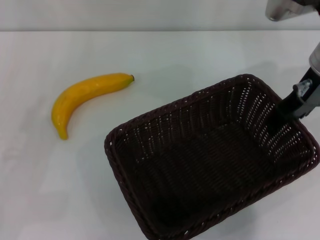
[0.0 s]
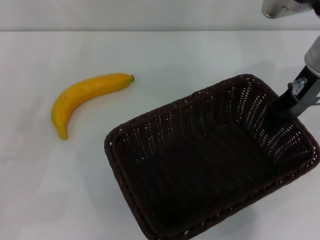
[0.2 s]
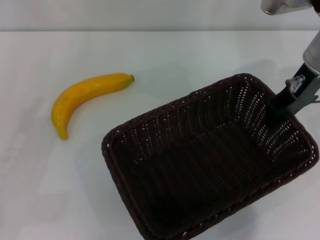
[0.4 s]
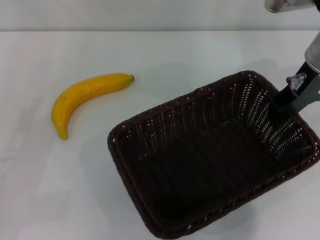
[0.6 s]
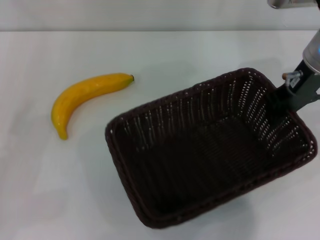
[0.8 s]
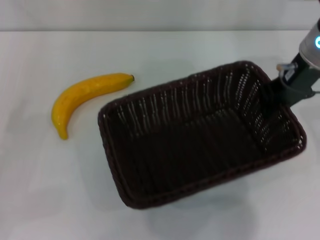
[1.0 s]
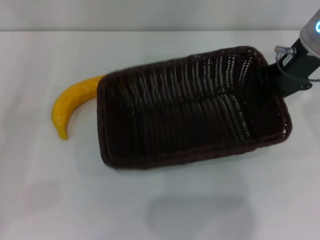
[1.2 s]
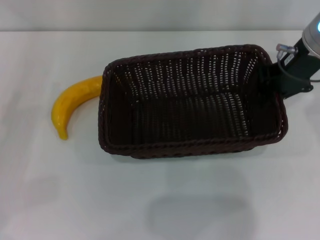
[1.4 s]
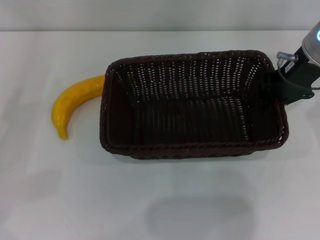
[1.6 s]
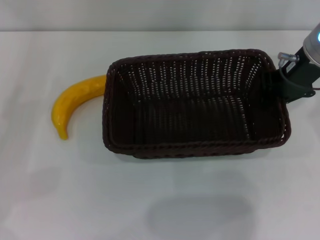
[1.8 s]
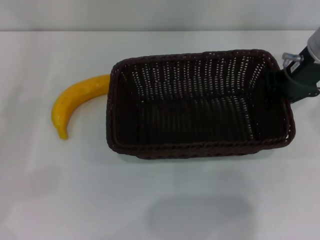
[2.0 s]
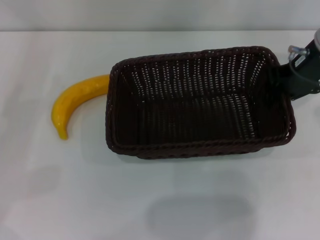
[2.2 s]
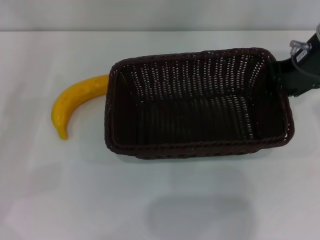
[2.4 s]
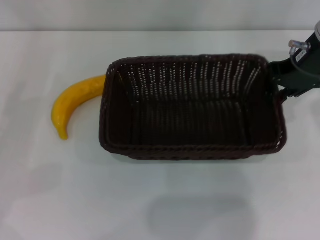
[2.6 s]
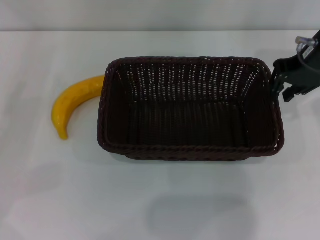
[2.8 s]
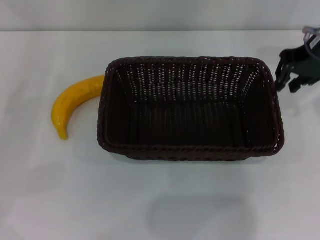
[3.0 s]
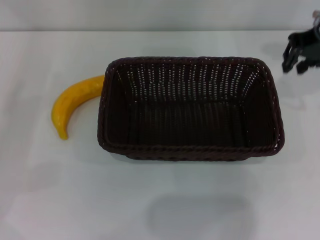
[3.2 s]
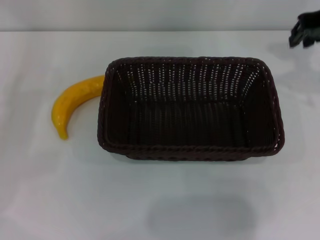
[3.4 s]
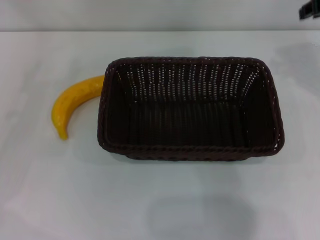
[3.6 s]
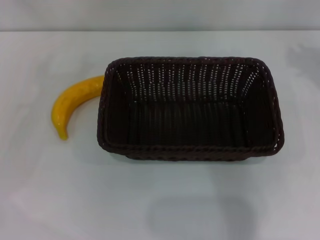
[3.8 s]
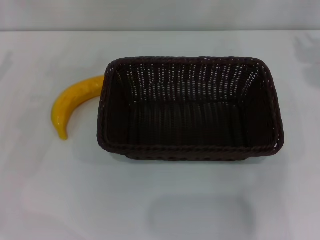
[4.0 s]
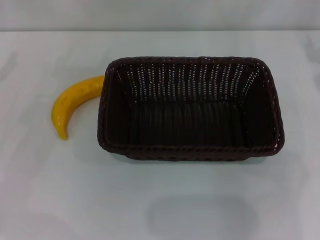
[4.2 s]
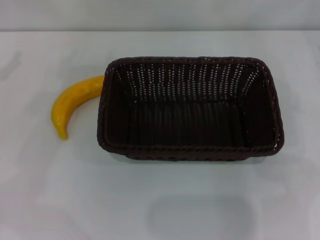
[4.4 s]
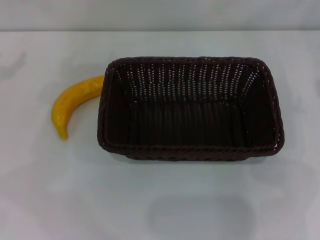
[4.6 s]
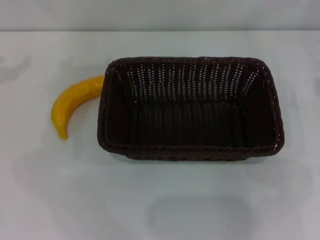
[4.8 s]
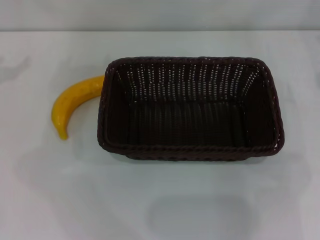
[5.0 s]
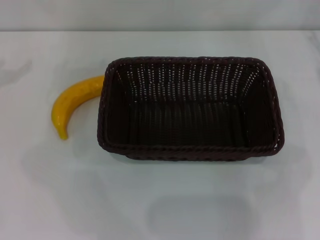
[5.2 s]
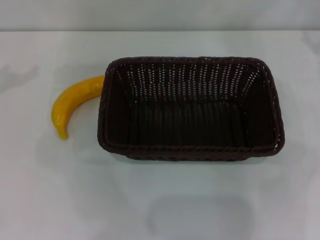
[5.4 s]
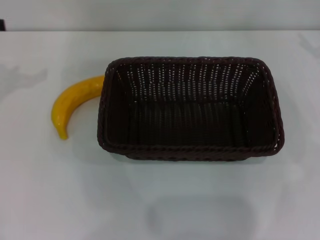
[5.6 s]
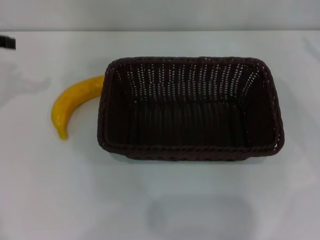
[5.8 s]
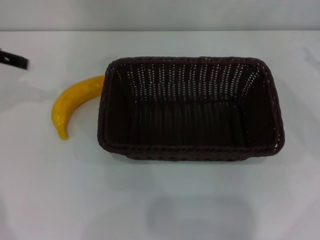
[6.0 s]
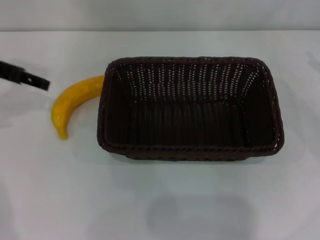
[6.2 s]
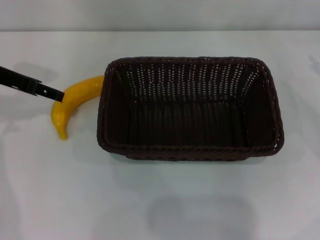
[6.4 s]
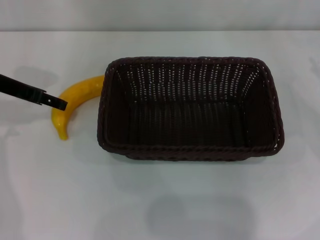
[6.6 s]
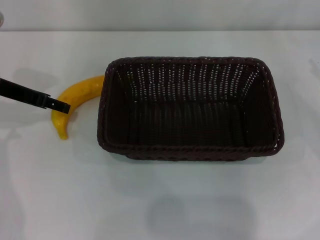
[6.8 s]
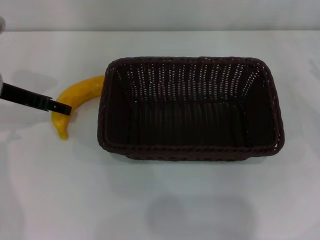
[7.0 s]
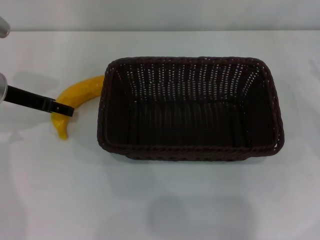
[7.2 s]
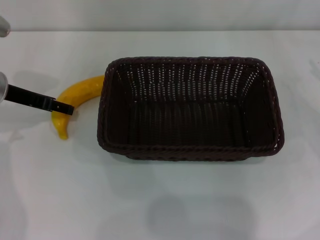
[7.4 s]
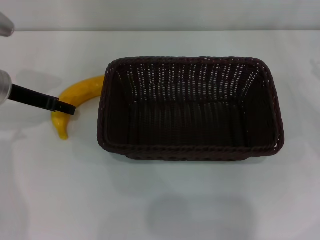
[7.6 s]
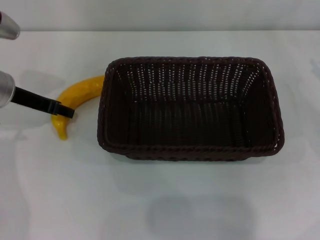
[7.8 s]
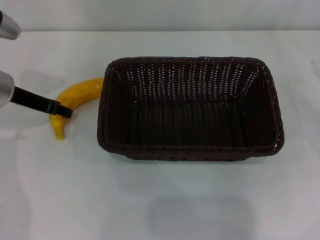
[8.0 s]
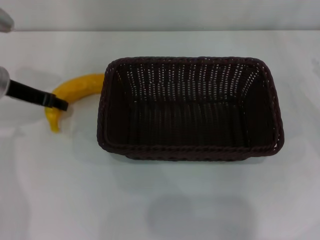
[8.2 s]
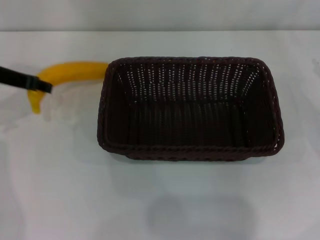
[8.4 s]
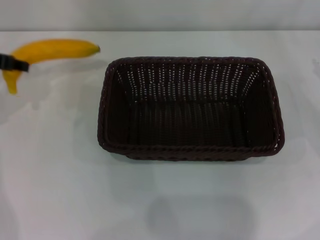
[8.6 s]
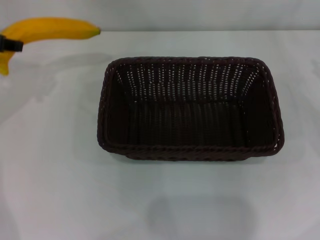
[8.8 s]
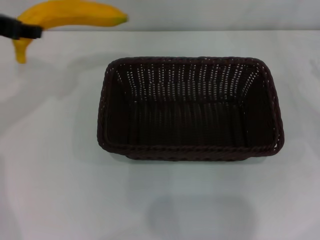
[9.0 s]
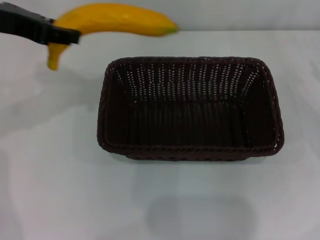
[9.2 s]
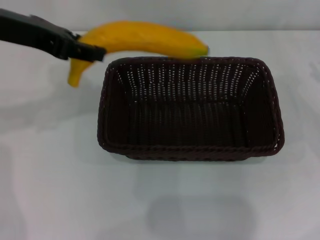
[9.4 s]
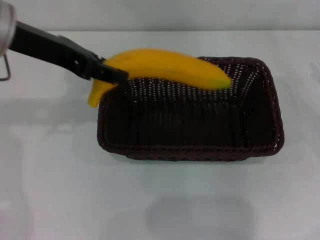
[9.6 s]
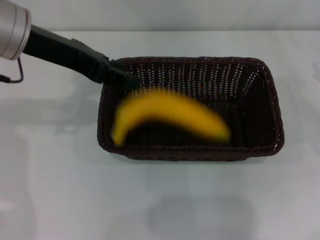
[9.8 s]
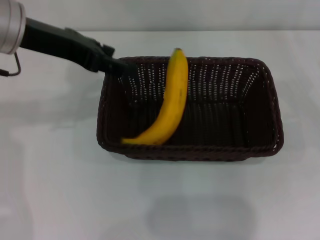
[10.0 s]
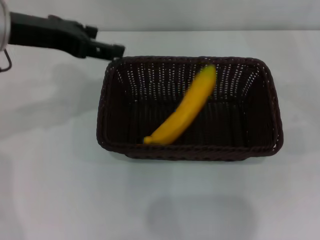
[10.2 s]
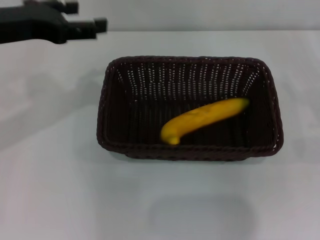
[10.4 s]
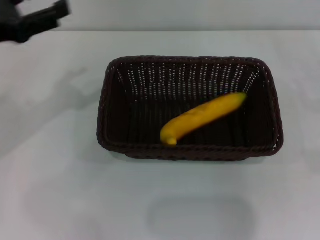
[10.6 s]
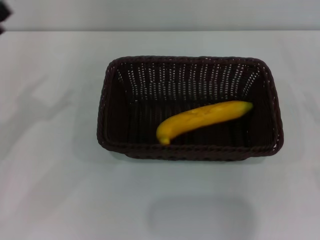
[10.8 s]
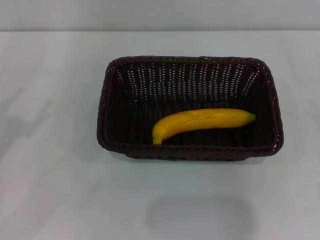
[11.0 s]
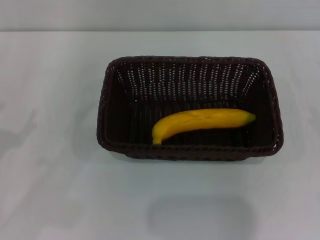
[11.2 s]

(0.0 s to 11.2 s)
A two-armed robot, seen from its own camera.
Step, 0.4 s - 2.8 s: Place the dark basket in the center of view with the right gripper.
Step, 3.0 s - 8.4 s: Pick up the banana with the left gripper.
Step, 8.6 s - 10.0 s: Place the banana into the dark basket with the left gripper.
0.0 s - 1.6 s: The right gripper closes its fingers. Meanwhile the left gripper changes place by some 5 cm.
1.6 s - 3.2 s: The right gripper shifts roughly 5 cm upward.
3.2 s - 4.8 s: The right gripper heads to the right and downward, covering approximately 15 cm, and opens its fingers.
4.8 s - 6.4 s: The left gripper moves to the right and downward, some 10 cm.
6.4 s - 8.0 s: The left gripper is displaced downward by about 5 cm, and closes its fingers.
8.0 s - 9.6 s: The left gripper shifts about 15 cm upward and to the right.
9.6 s - 11.2 s: The right gripper travels backward and downward by roughly 15 cm. Meanwhile the left gripper is displaced downward, backward and to the left by approximately 25 cm, and opens.
